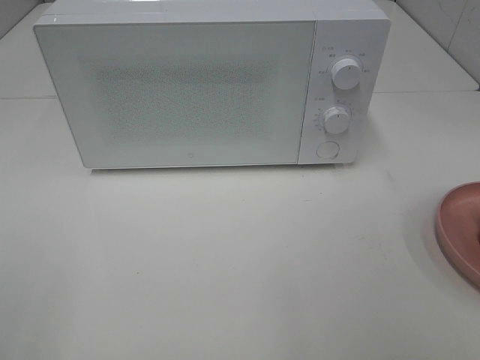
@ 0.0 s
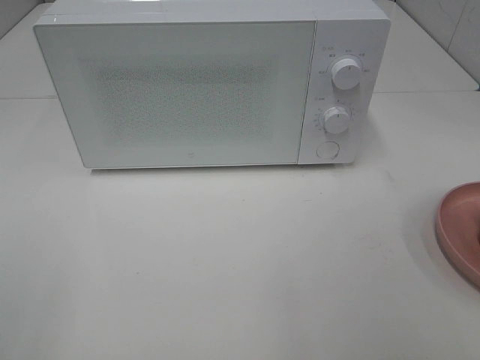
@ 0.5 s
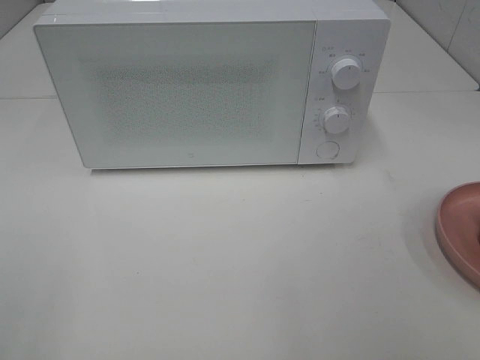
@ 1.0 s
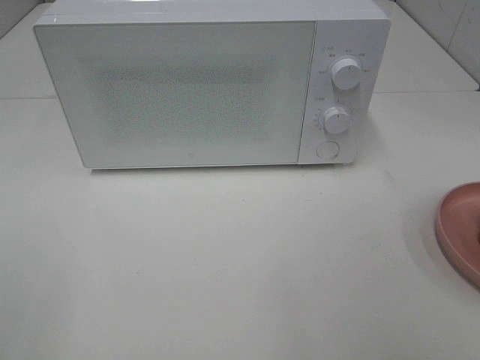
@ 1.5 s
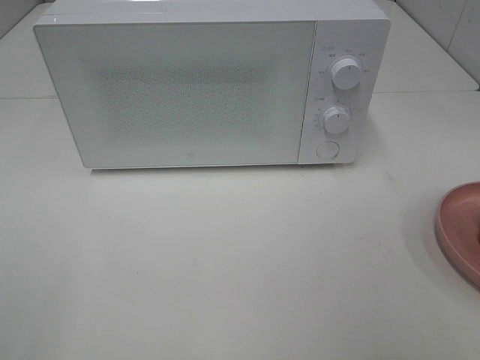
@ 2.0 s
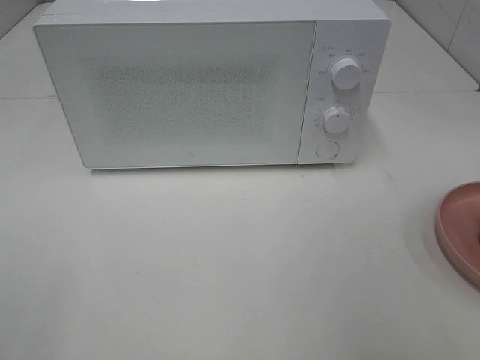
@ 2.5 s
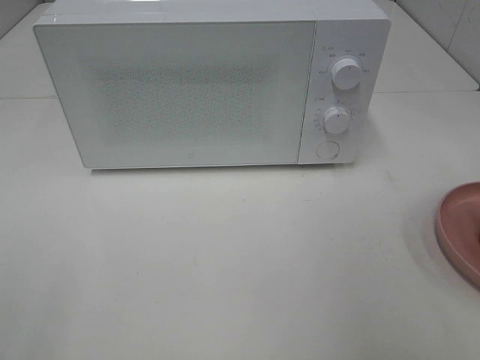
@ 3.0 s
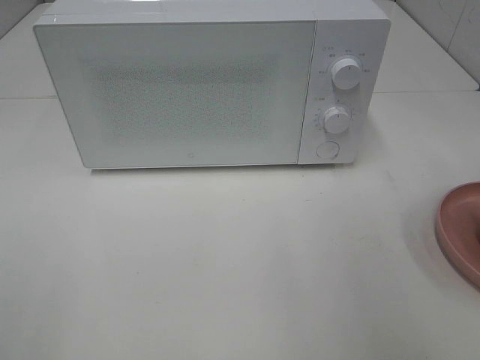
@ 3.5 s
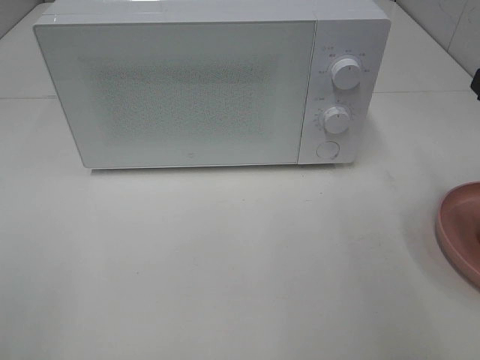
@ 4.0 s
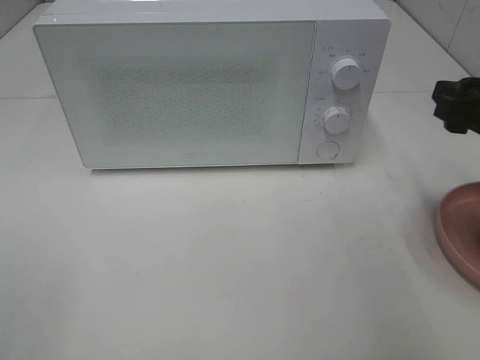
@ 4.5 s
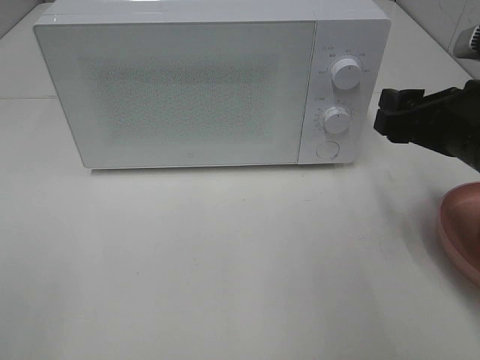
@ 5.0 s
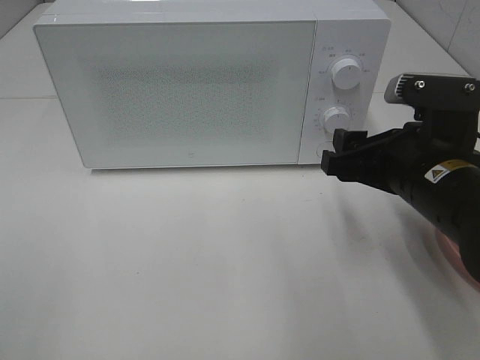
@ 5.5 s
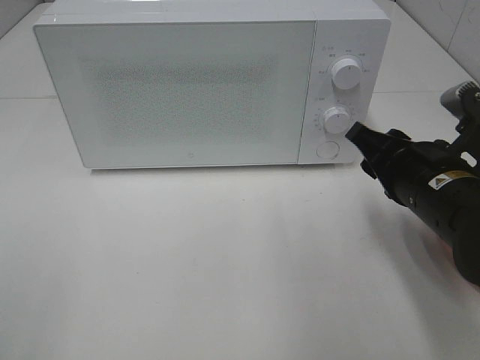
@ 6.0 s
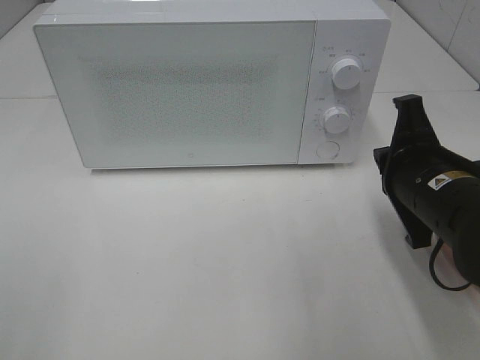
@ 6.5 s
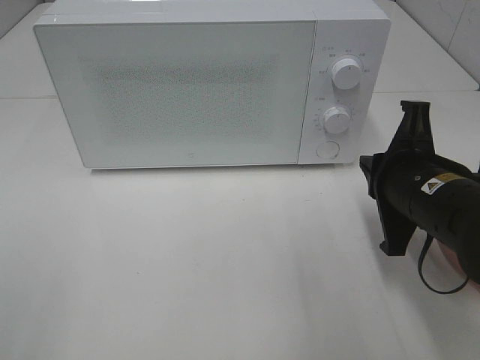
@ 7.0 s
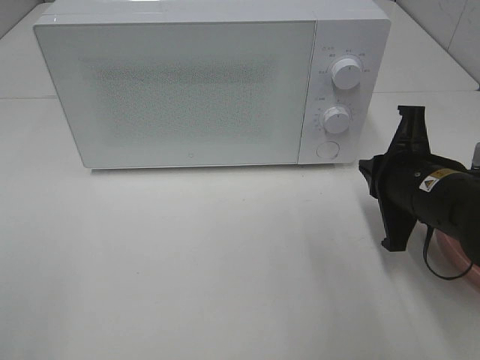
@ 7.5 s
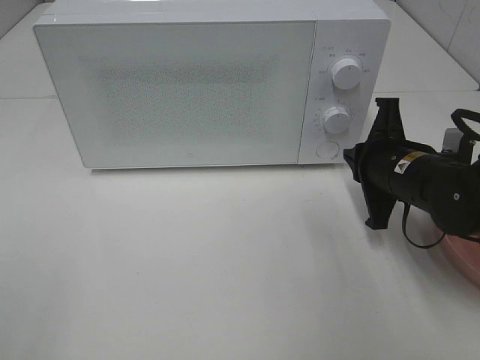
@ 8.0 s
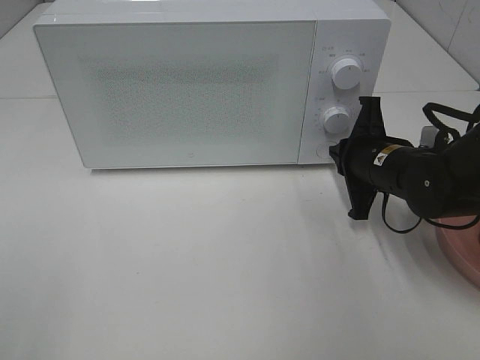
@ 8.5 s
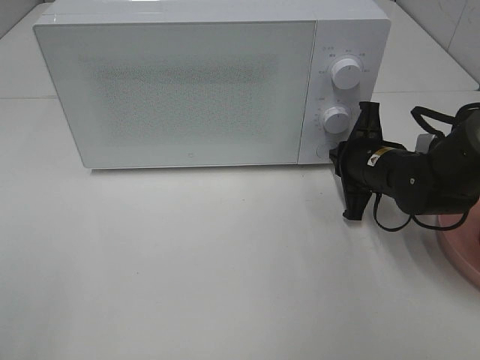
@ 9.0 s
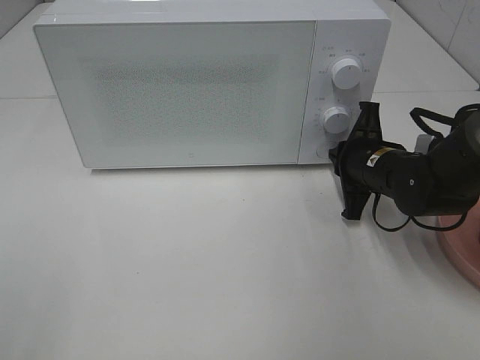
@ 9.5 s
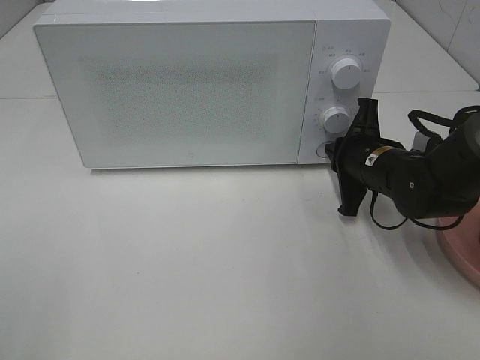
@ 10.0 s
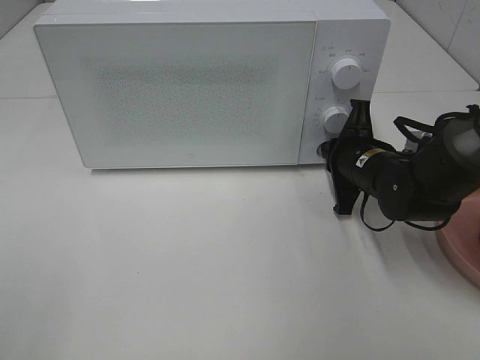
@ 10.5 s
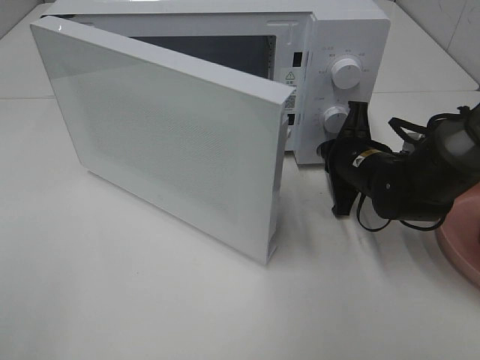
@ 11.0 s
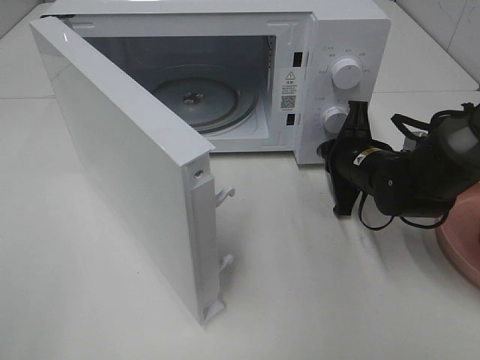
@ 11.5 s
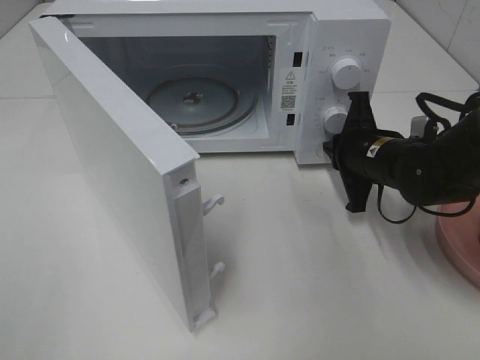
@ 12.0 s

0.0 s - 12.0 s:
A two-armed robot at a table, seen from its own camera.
Task of the whole recording: Heat the burger.
4.0 s - 6.0 s: The right gripper shifts about 15 cm to the left and downward.
6.0 s - 8.0 s: The right gripper is displaced forward by about 5 cm, and closes up.
8.0 s - 10.0 s: The right gripper shifts by about 5 cm.

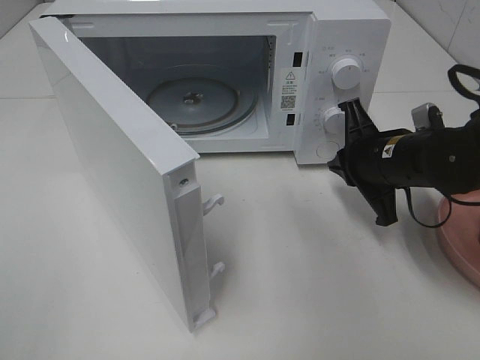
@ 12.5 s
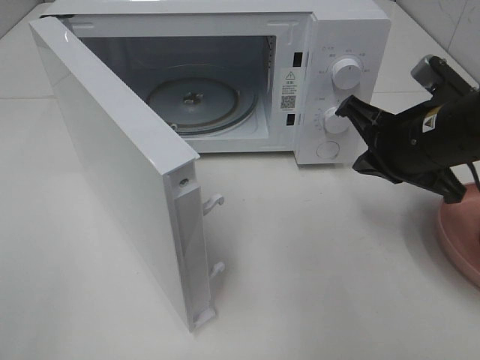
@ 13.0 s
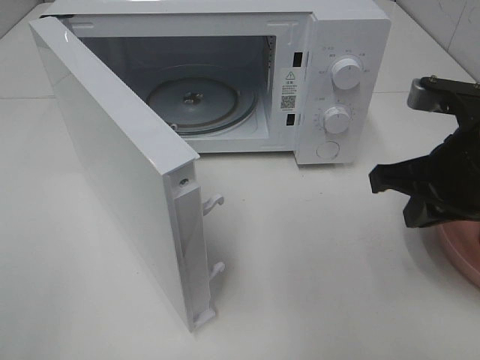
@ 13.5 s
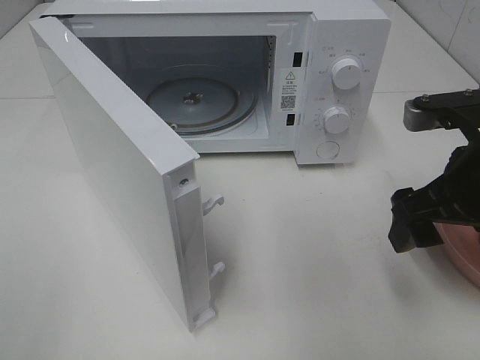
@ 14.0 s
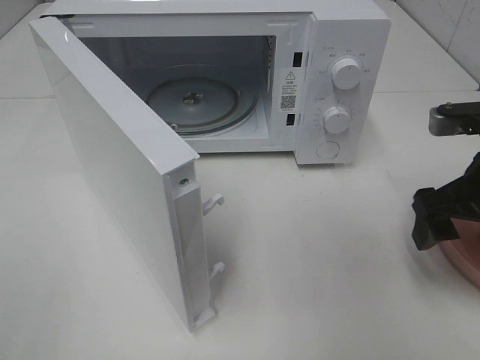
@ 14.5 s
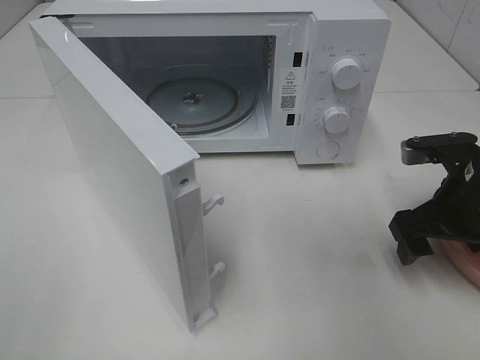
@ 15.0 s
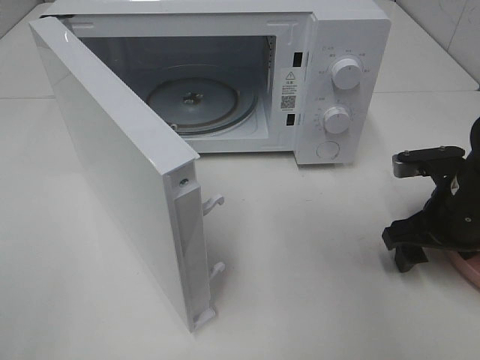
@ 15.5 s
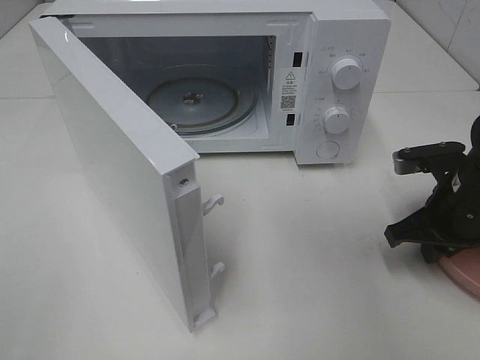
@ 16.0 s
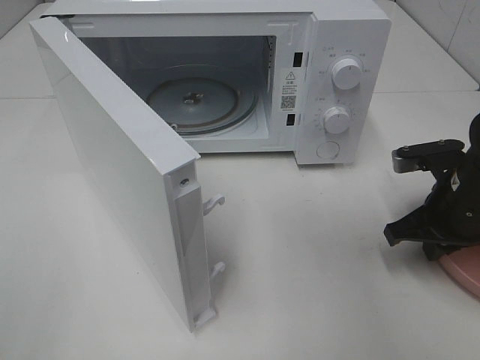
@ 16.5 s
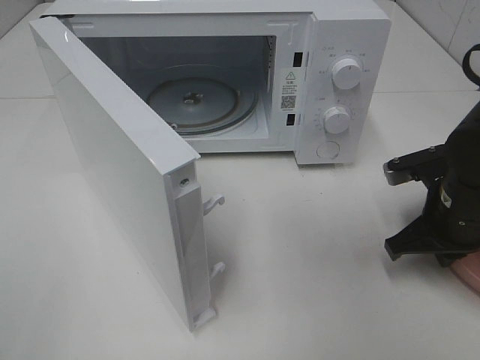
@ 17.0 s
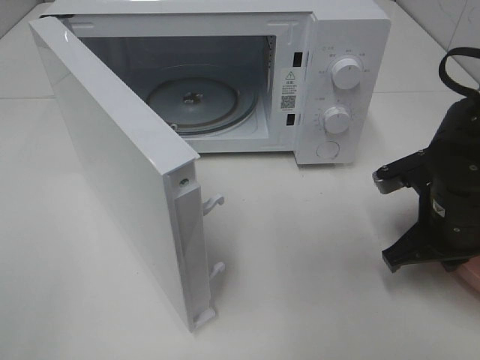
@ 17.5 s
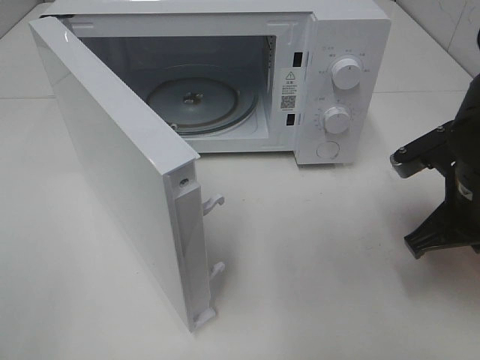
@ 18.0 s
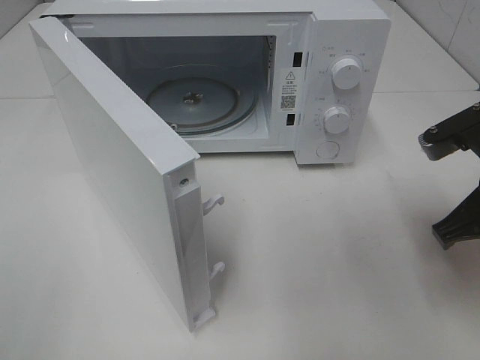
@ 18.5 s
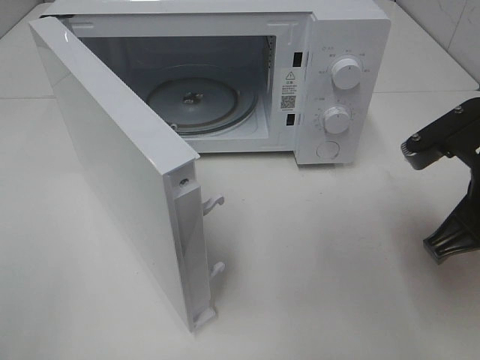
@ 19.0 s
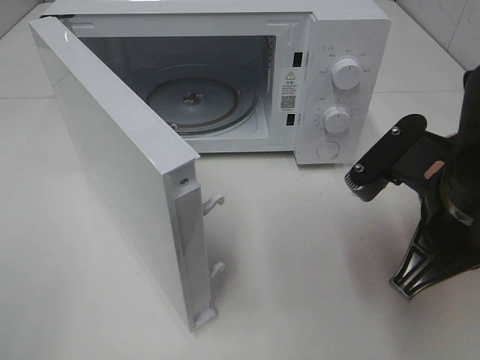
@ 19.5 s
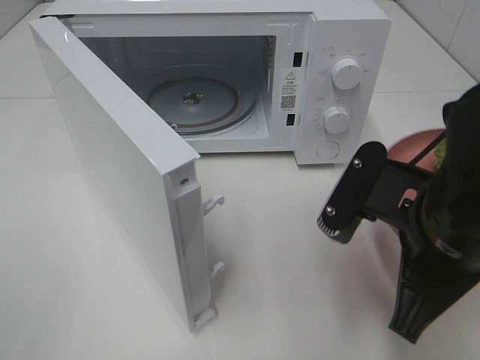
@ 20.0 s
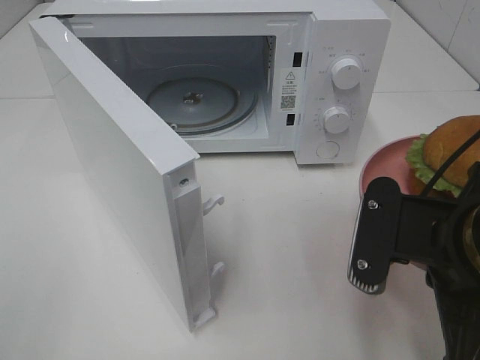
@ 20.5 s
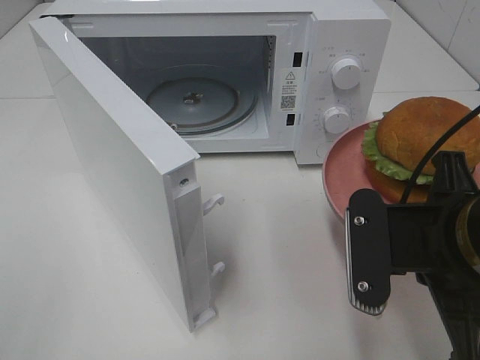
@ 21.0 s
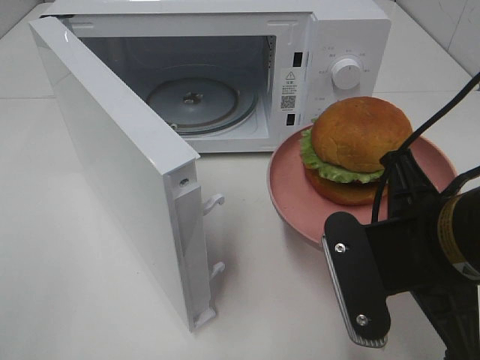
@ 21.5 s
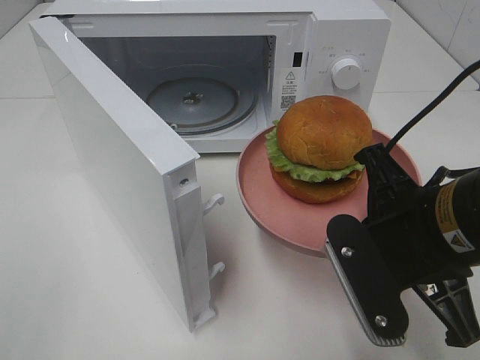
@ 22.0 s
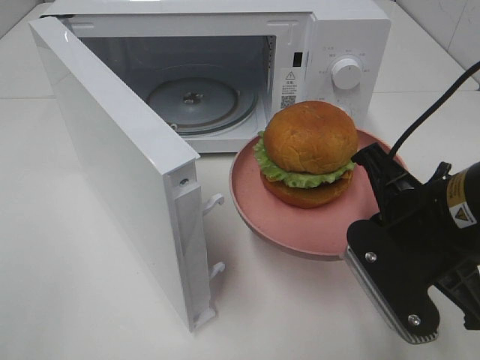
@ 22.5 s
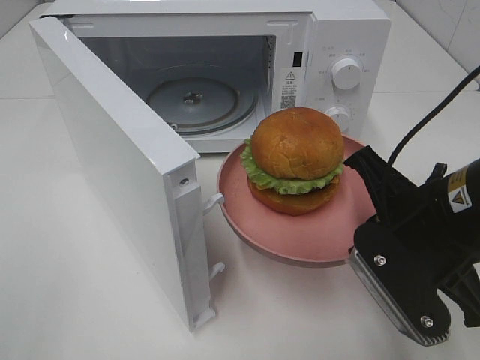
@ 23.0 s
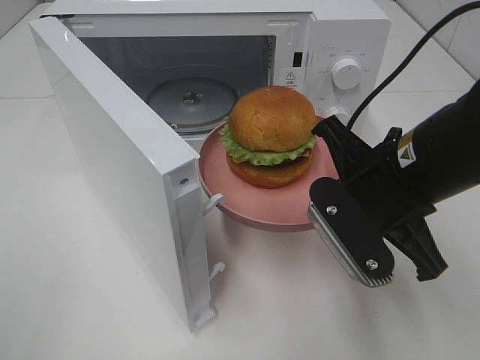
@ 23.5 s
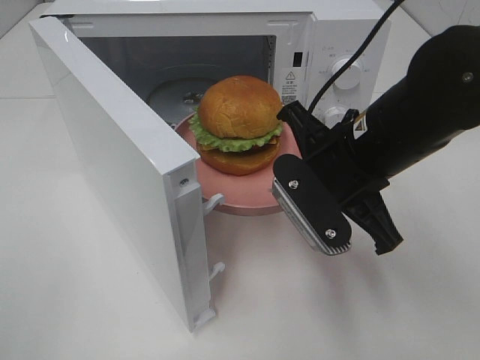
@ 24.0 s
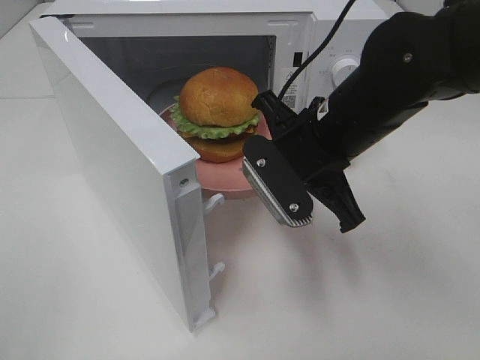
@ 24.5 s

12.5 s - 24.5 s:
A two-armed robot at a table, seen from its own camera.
Task of the whole recording: Heat the burger.
Step, 12.5 s - 16.0 s: Right hand: grab the plate with the hamburger.
12.5 s - 14.5 s: The right gripper shifts roughly 10 cm backward, to the right and upward, and opens up.
14.5 s - 16.5 s: The right gripper goes about 10 cm downward, and closes up.
16.5 s - 18.5 s: The right gripper heads upward and backward, covering about 10 cm.
18.5 s - 20.5 s: The right gripper moves backward and to the left, approximately 10 cm.
22.5 s - 24.5 s: The right gripper goes roughly 10 cm forward and to the left.

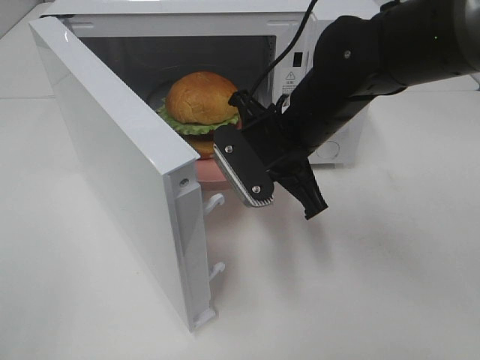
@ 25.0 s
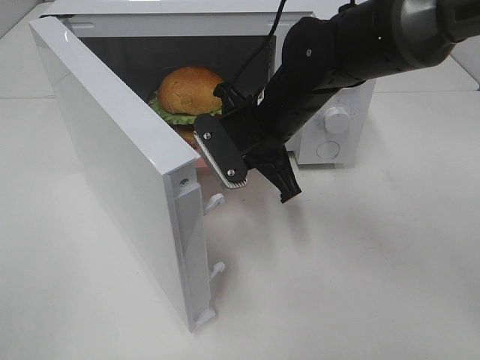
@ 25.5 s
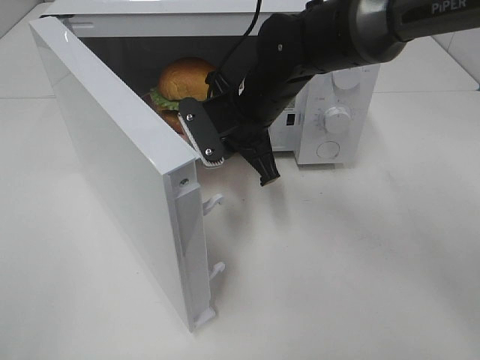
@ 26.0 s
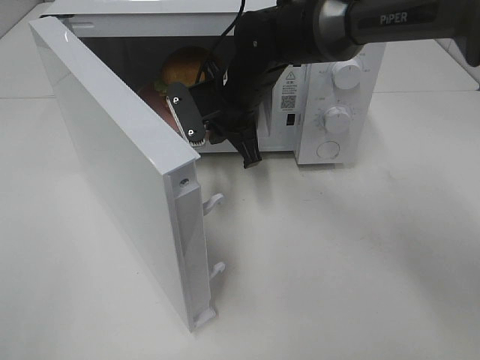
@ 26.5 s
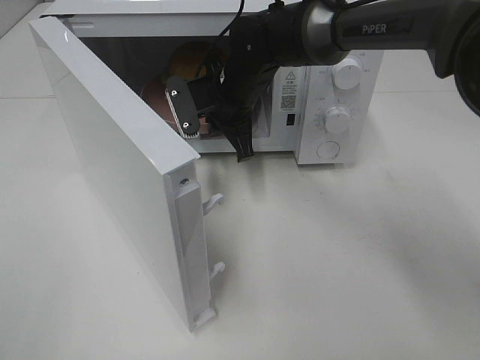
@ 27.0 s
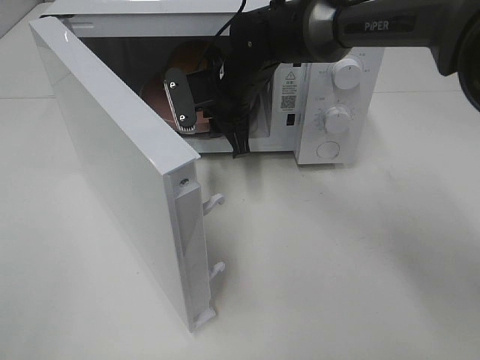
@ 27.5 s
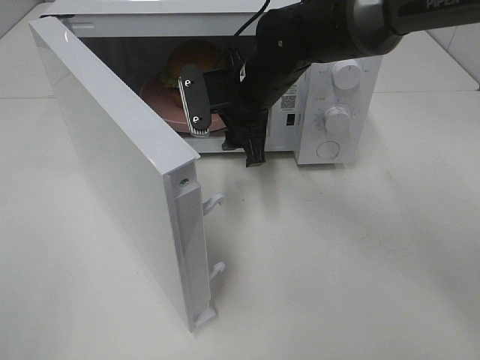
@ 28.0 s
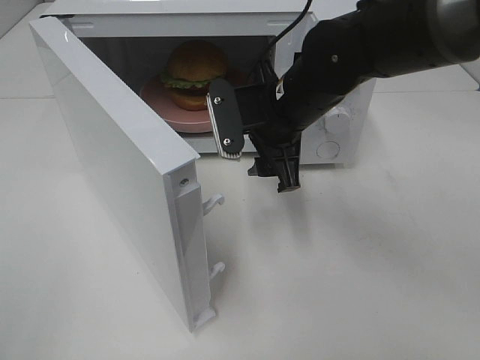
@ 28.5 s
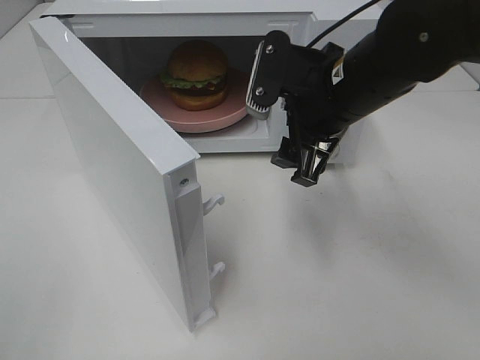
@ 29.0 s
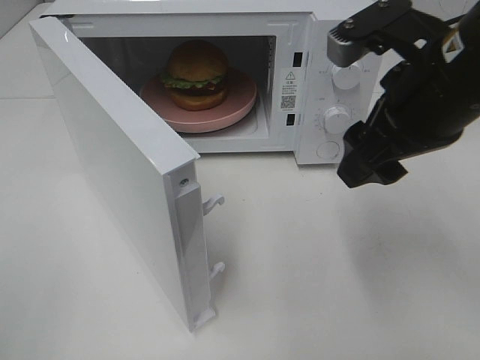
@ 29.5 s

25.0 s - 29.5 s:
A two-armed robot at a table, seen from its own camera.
Task of the whole recording: Heat the burger.
Step, 25.0 s - 27.0 s: Right hand: place the plate in the microwave.
25.0 s - 27.0 s: The right gripper travels forward and to the left by some 15 cm.
27.0 s - 29.5 s: The right gripper is displaced backward, to the right and upward by approximately 30 cm, and opens up.
